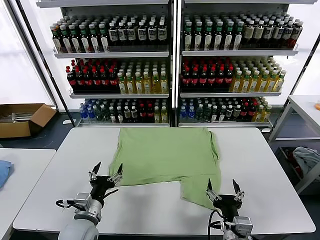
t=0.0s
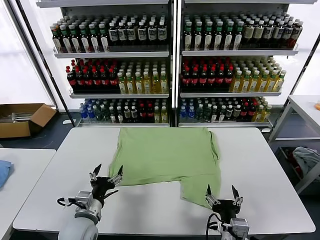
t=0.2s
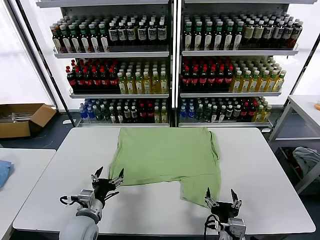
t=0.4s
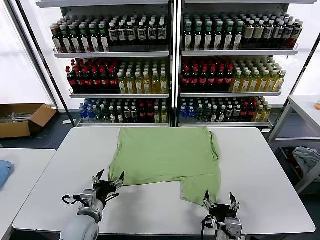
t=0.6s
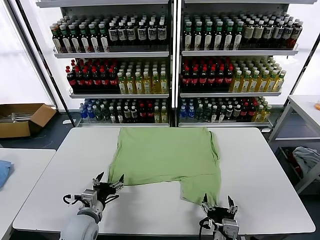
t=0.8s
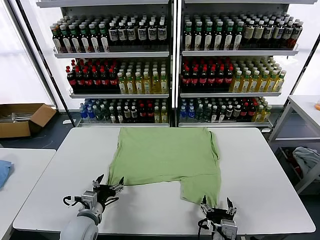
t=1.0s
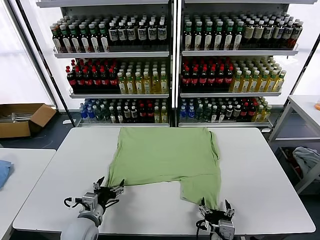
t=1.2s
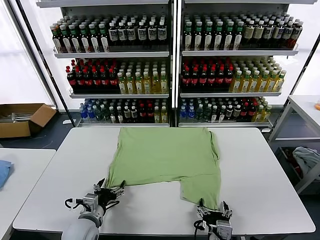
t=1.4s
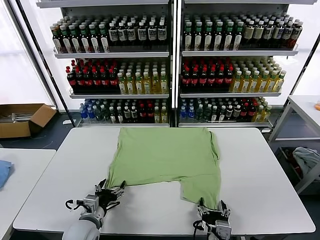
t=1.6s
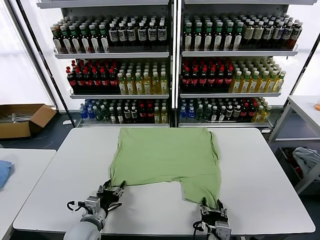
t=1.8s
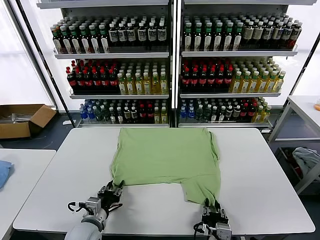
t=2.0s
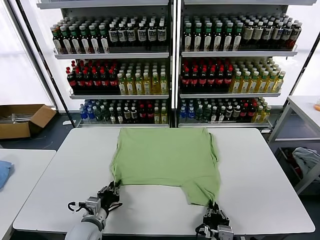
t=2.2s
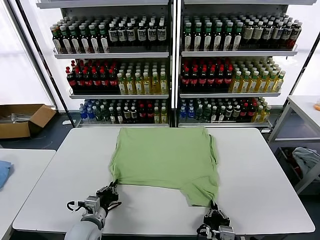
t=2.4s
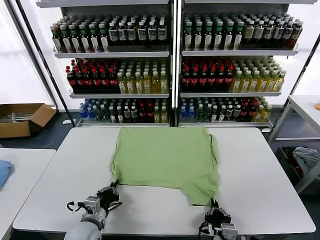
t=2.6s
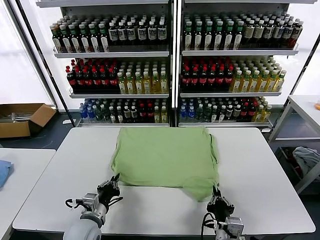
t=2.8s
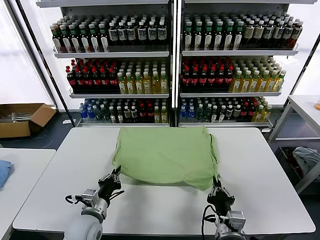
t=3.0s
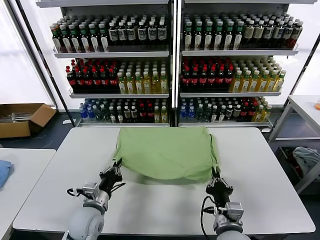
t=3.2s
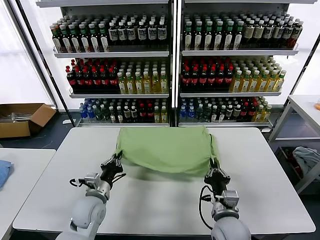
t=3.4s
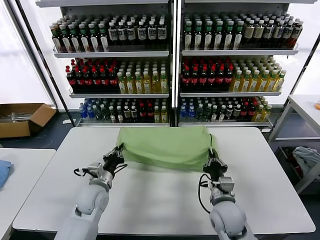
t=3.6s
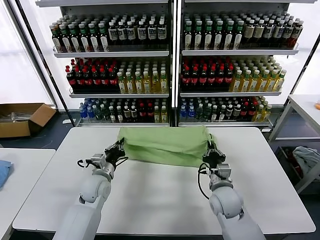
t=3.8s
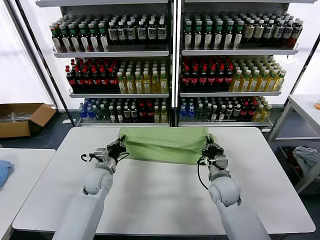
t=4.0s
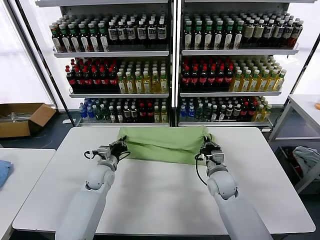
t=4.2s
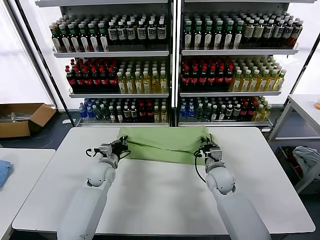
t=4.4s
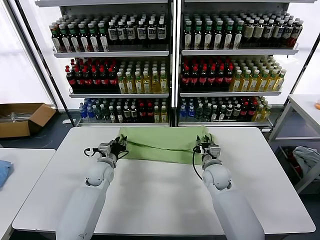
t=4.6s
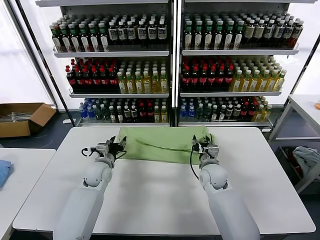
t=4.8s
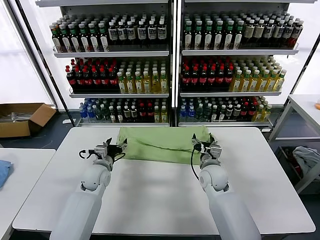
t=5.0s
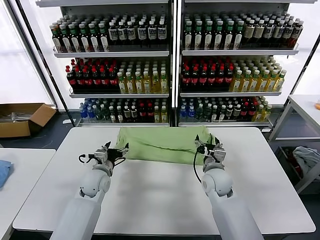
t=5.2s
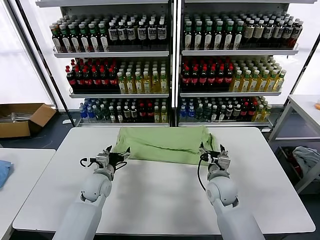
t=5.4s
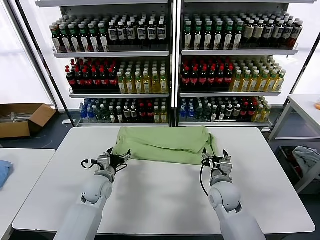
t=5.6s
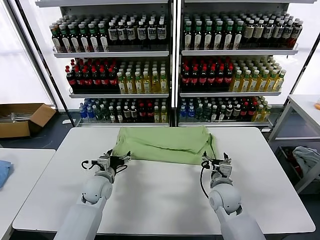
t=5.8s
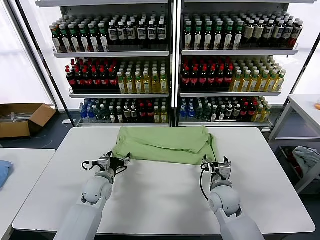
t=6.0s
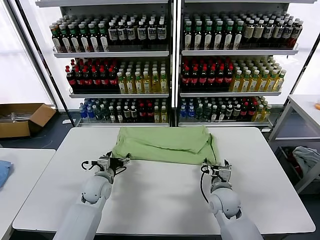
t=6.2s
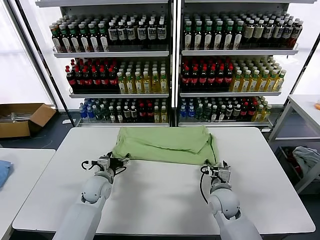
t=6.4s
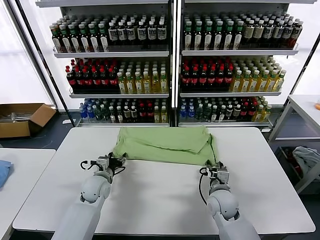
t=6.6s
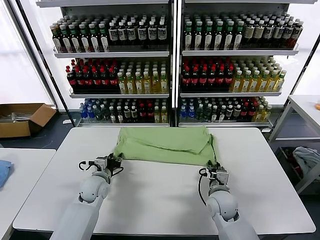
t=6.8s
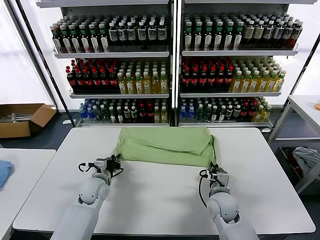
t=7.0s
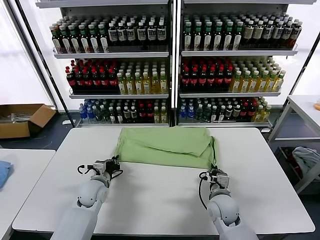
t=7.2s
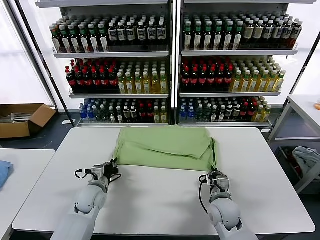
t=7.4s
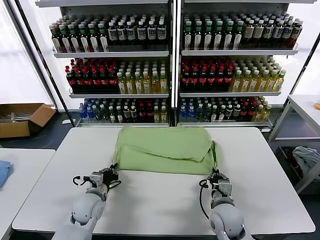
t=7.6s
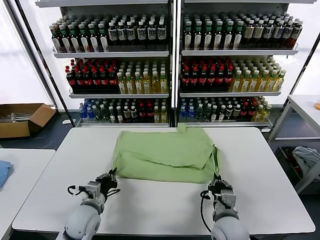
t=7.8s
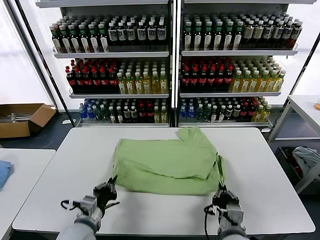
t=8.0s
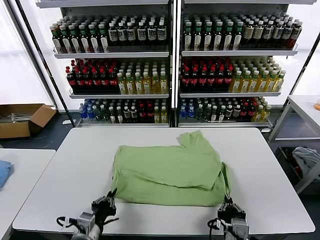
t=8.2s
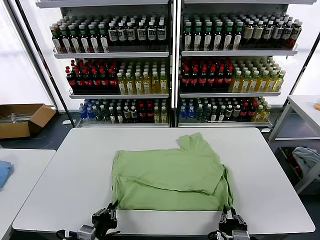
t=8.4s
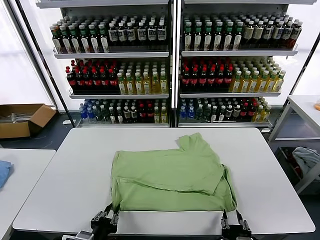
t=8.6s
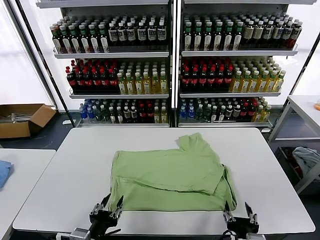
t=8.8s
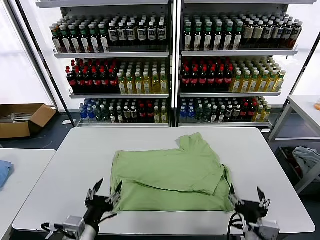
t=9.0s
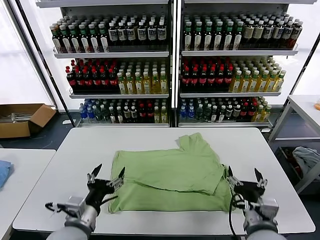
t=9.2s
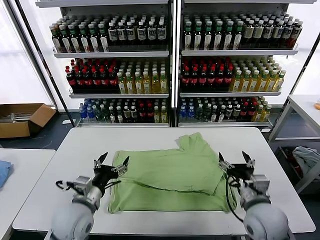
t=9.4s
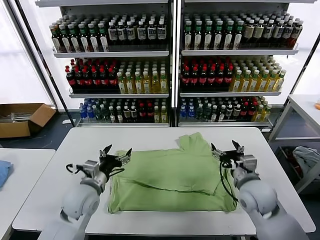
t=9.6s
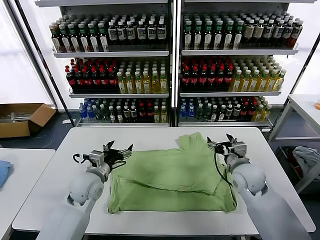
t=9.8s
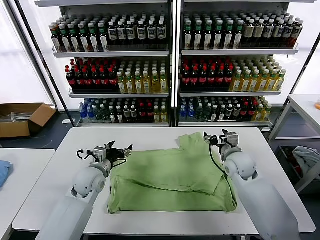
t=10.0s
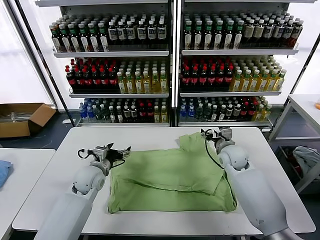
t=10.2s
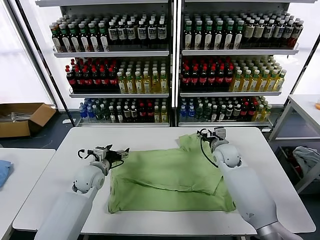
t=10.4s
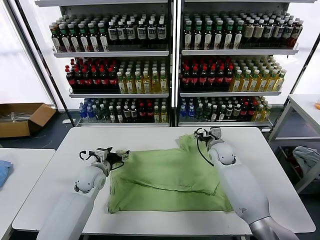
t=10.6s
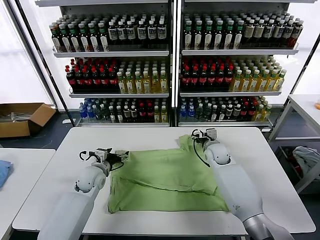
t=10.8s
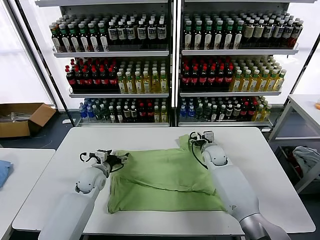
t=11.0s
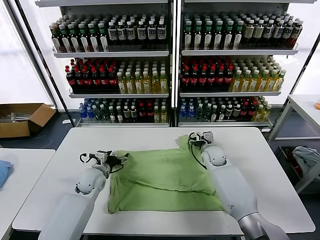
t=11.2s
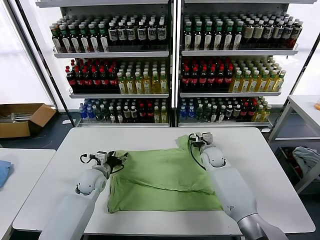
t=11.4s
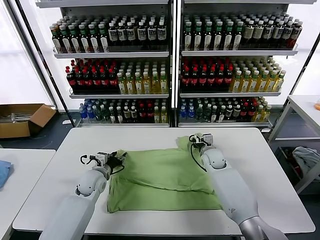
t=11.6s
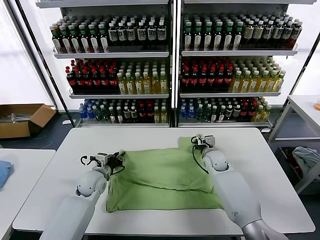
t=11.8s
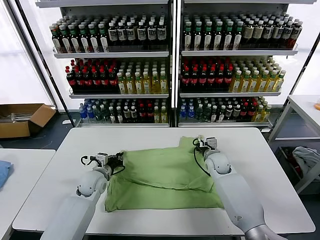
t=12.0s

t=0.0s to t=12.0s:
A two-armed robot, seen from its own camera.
Task of the whole recording: fold and organize the clothes.
Step, t=0.0s to t=2.4s: use both grippers simultaneously to clamp the lower edge of the clothing fabric.
Step, t=2.6s to t=5.0s: use both grippers to drag the lower edge of the fabric forward and fold it over the upper edge.
Step, t=5.2s to t=8.6s: Drag the clothes downward with both gripper.
Step, t=8.8s to t=12.0s: use both grippers simultaneously to clamp the upper edge of the clothing fabric.
t=1.6s to t=3.0s: The left gripper closes up; the right gripper moves approximately 5 cm, and closes its fingers.
t=3.0s to t=4.4s: Both grippers move forward, approximately 20 cm. The right gripper opens its fingers.
t=4.4s to t=6.0s: The two grippers go some 5 cm backward. The left gripper opens. The right gripper opens its fingers.
t=6.0s to t=7.6s: Both grippers travel together backward, about 10 cm. The right gripper closes its fingers. The left gripper closes.
t=7.6s to t=9.0s: The two grippers go approximately 15 cm backward and upward. The left gripper opens its fingers. Meanwhile the right gripper opens up.
t=9.0s to t=10.4s: The two grippers go some 30 cm forward.
t=10.4s to t=12.0s: The left gripper closes, while the right gripper heads downward, covering roughly 5 cm, and closes up.

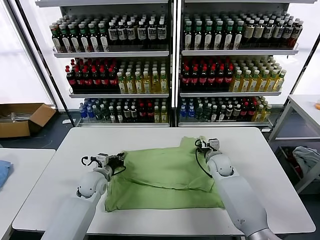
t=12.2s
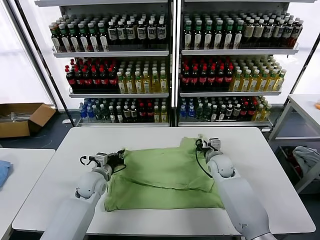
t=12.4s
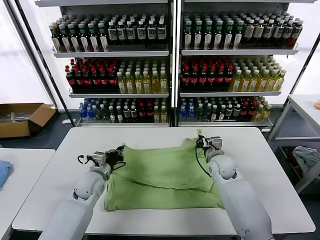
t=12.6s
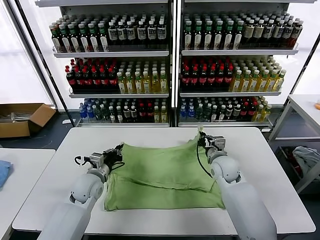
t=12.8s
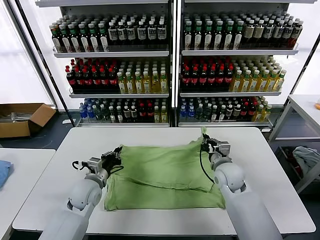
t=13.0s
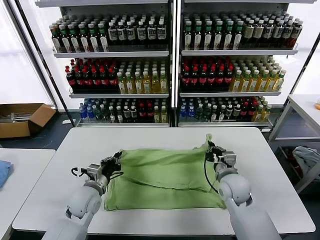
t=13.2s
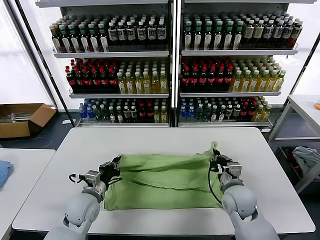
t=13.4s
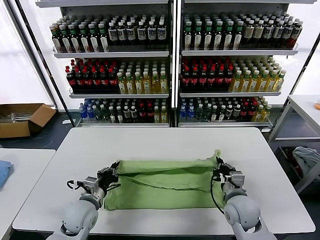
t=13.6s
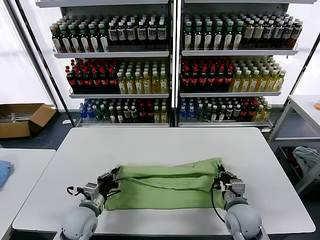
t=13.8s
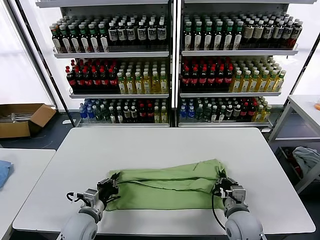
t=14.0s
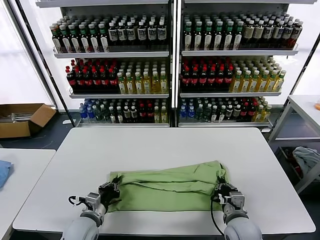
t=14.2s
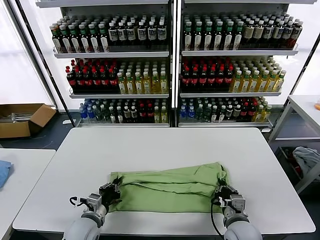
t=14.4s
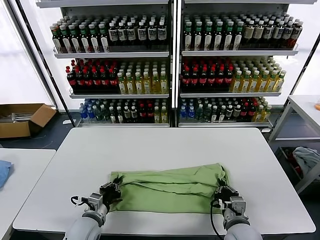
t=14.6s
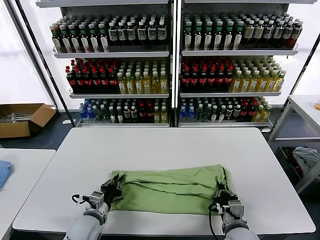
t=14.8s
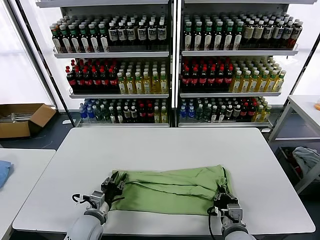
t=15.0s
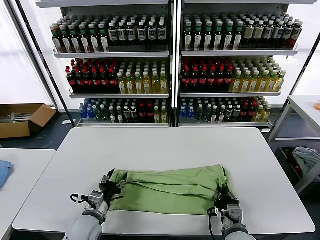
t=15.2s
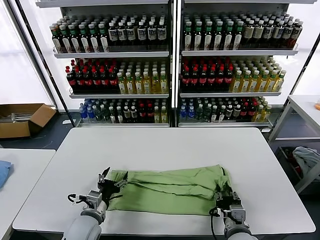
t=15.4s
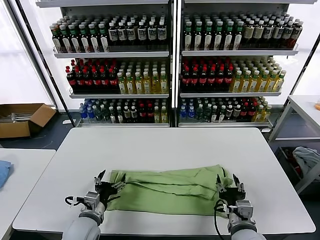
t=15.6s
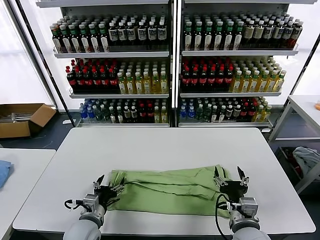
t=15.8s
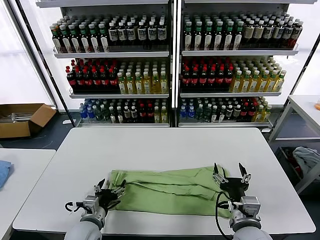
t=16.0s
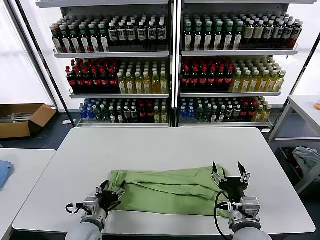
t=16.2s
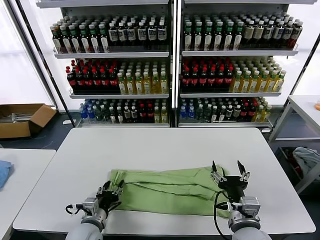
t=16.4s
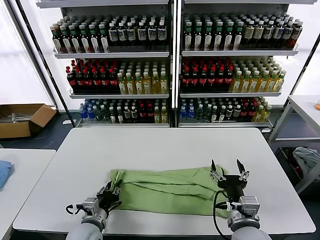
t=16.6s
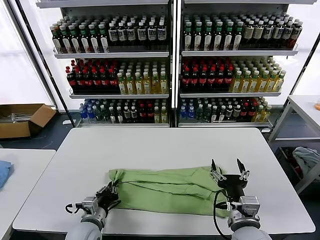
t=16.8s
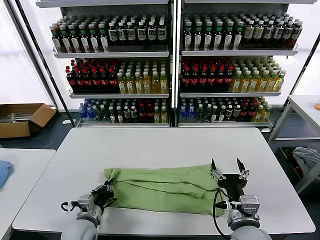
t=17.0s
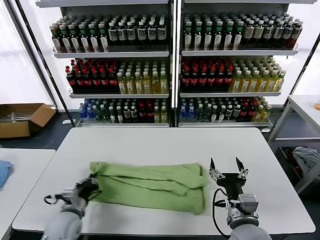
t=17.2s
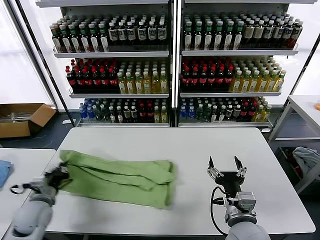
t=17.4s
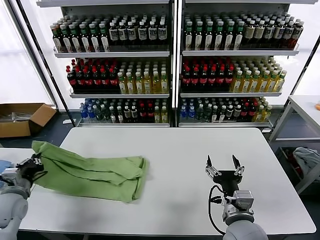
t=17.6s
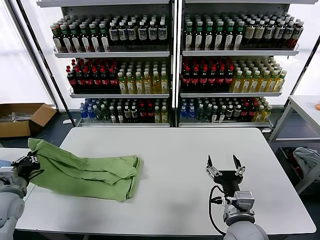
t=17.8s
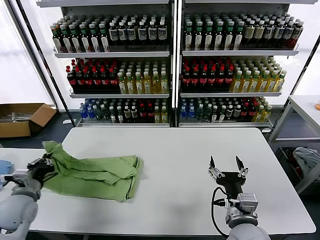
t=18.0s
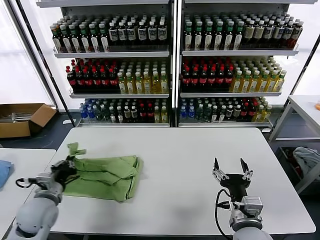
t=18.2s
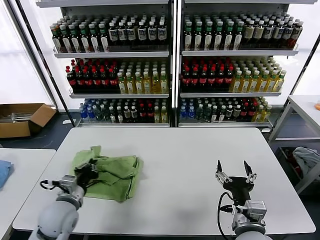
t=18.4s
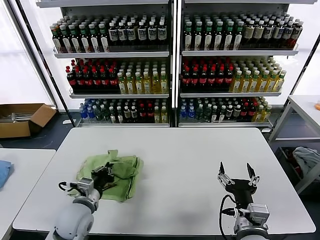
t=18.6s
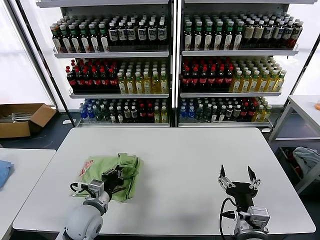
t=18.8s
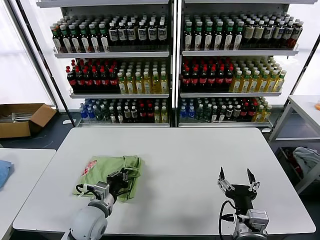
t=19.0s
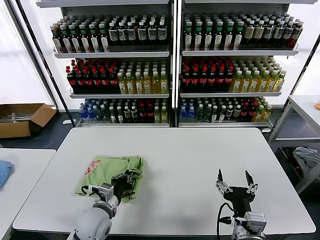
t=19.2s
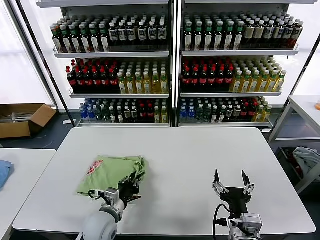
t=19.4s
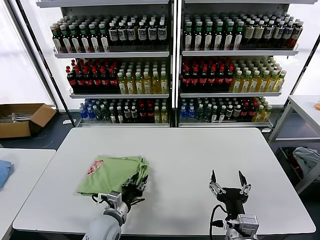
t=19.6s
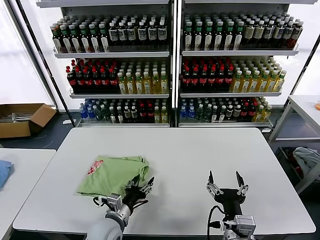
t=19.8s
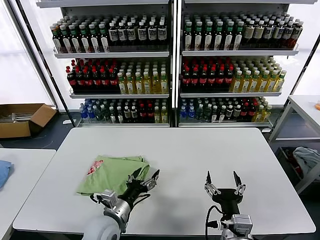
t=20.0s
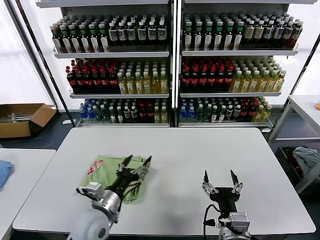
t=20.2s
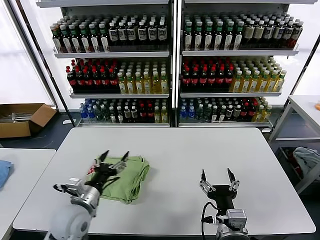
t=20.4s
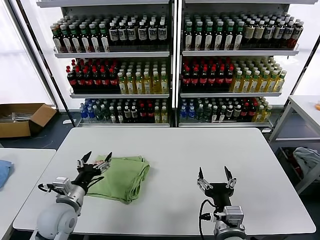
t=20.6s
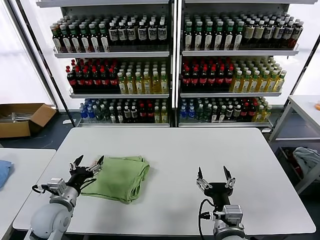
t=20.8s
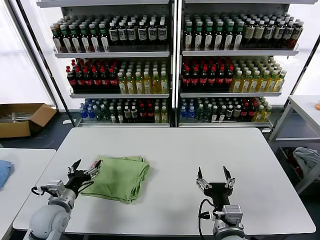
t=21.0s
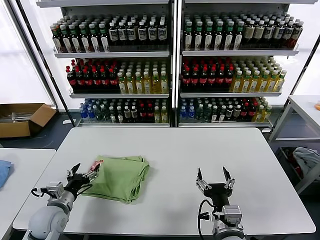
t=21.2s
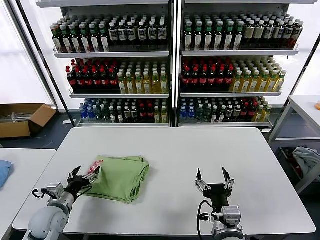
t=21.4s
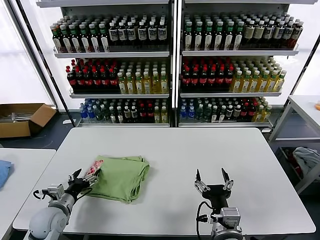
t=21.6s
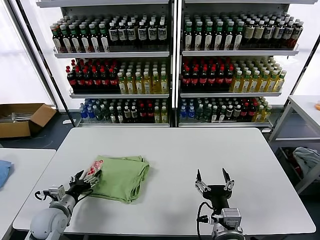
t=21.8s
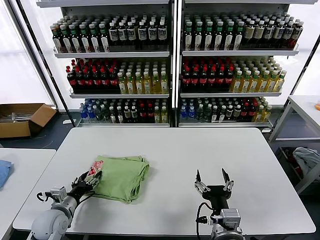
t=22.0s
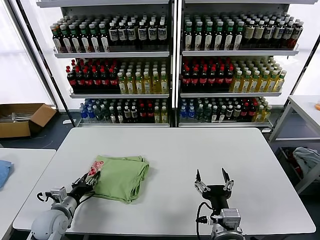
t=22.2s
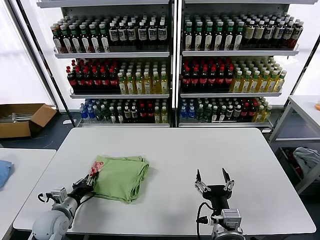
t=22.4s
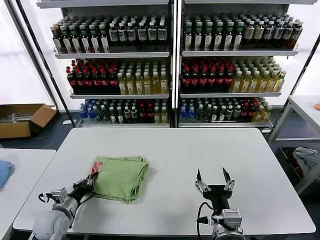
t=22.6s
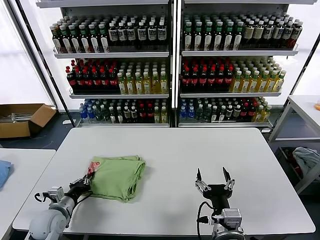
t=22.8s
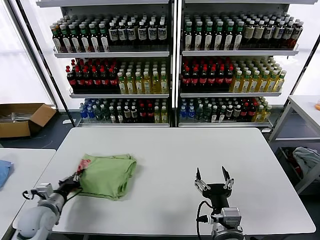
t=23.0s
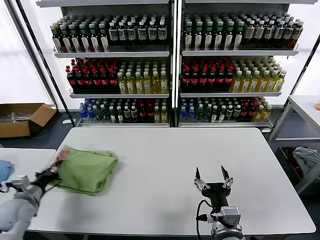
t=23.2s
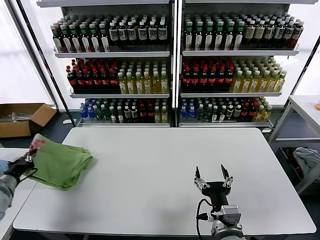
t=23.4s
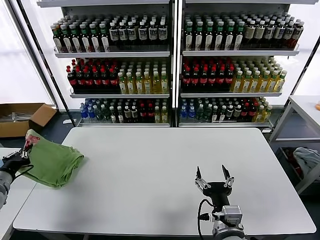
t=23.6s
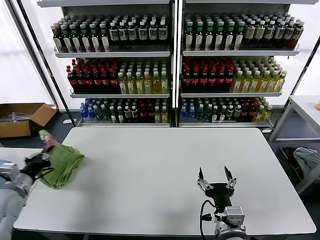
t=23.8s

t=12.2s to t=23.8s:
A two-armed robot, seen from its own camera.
Task of the whole recording: fold and organize the clothes.
Step, t=12.2s to t=15.6s: use both grippers to drag the upper edge of the fabric backward and fold it over the lower edge.
Step, t=15.8s to t=16.8s: use the left gripper to clamp the left edge of the fabric.
Step, t=17.0s to t=19.8s: use the left gripper to drag the left edge of the fabric to the left and folds it over the right edge.
t=12.2s to t=13.6s: The right gripper goes some 20 cm backward, while the left gripper is displaced backward by roughly 10 cm.
t=13.6s to t=15.0s: The right gripper heads backward, covering some 10 cm. The left gripper opens.
t=15.0s to t=16.6s: The left gripper opens, then closes again. Meanwhile the right gripper shifts approximately 10 cm upward, and opens.
t=16.6s to t=18.0s: The left gripper travels to the left and upward by roughly 20 cm, and closes its fingers.
t=18.0s to t=19.4s: The left gripper is displaced to the right by some 25 cm.
t=19.4s to t=21.0s: The left gripper is displaced to the left by approximately 15 cm, and opens.
t=21.0s to t=22.4s: The left gripper is displaced downward by approximately 5 cm, and closes.
t=22.4s to t=23.8s: The left gripper shifts some 15 cm upward and to the left.
